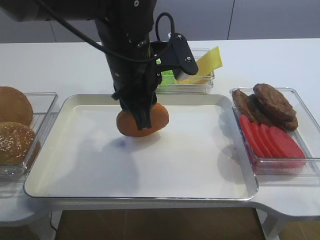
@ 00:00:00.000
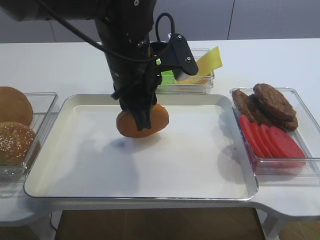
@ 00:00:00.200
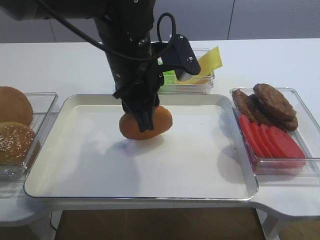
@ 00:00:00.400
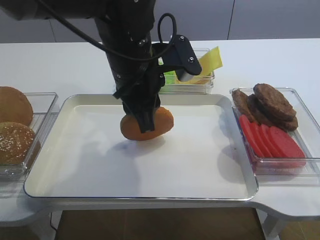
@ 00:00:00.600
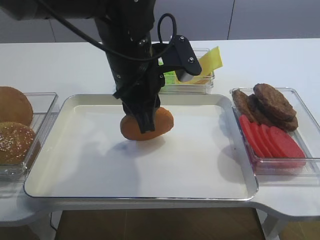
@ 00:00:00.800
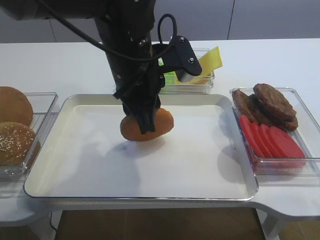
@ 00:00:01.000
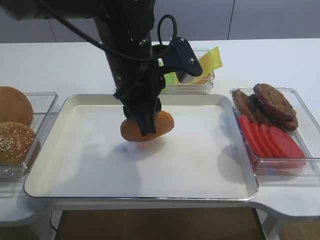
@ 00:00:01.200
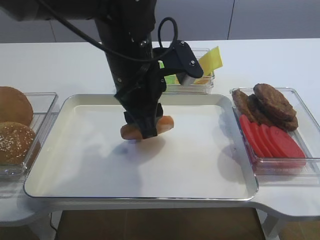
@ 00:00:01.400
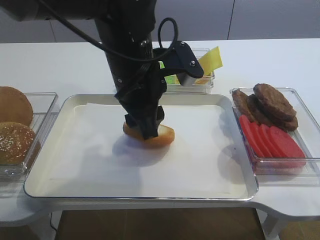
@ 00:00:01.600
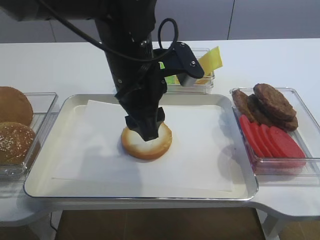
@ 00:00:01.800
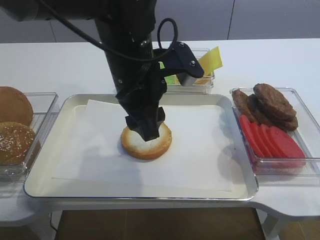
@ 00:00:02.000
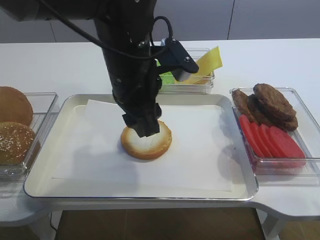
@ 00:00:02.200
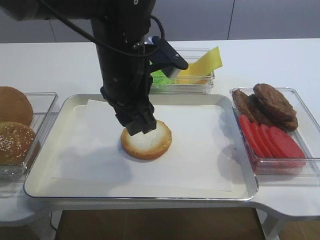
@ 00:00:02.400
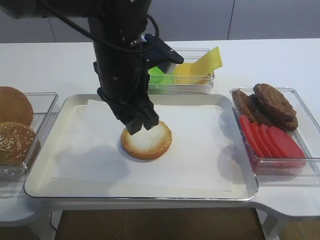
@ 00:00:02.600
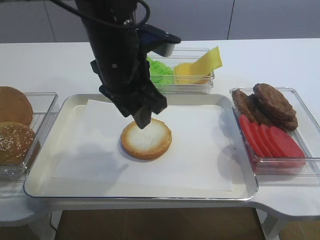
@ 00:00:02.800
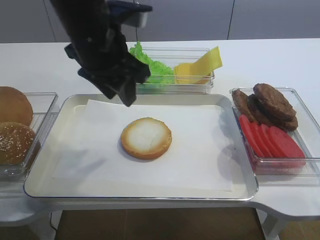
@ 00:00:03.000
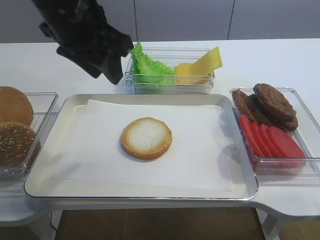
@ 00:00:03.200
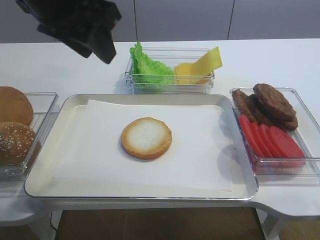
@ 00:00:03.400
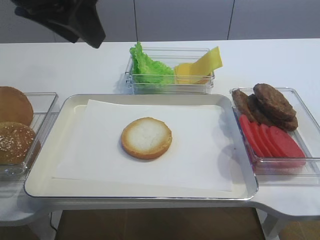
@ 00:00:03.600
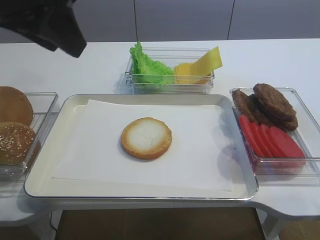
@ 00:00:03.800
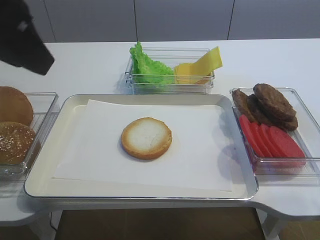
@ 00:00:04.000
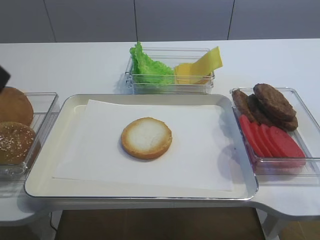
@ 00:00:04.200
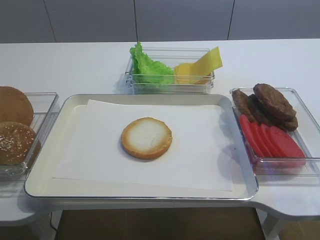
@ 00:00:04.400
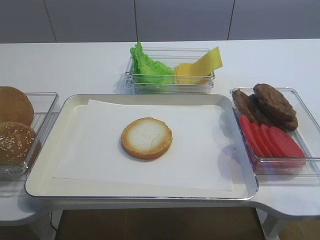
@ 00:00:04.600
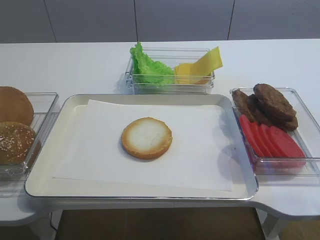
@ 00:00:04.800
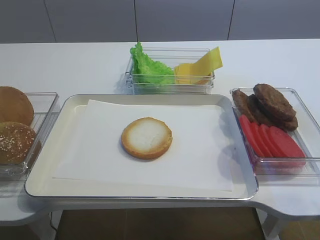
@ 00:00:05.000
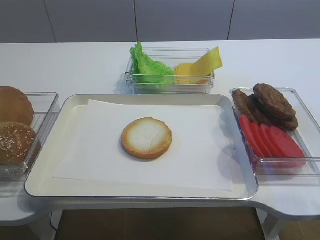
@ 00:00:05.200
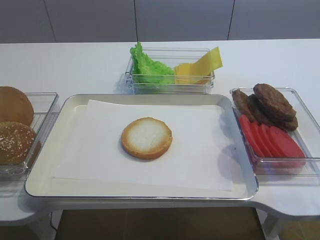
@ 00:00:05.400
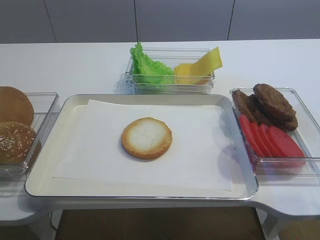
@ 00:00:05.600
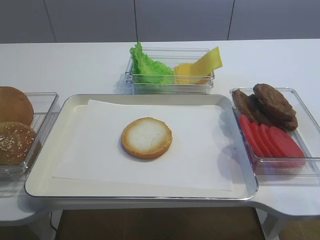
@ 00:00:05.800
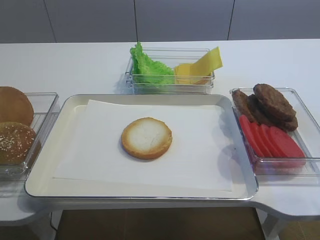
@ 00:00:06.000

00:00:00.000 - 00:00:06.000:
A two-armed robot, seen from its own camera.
Step, 00:00:00.000 - 00:00:02.800: Place the bread slice on the tray with the left gripper.
00:00:00.000 - 00:00:01.600: The left gripper opens up.
00:00:01.600 - 00:00:03.000: The left gripper moves some 5 cm.
00:00:03.000 - 00:00:04.400: The left gripper is displaced backward, to the left and upward by about 30 cm.

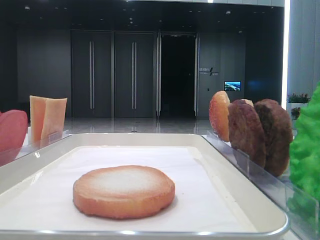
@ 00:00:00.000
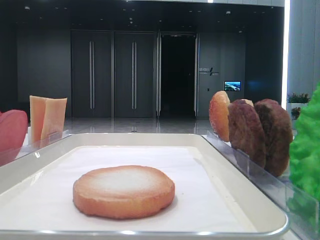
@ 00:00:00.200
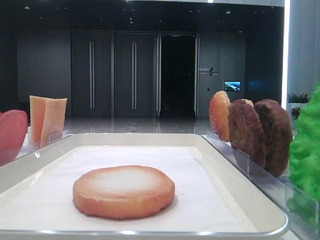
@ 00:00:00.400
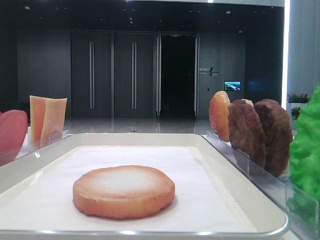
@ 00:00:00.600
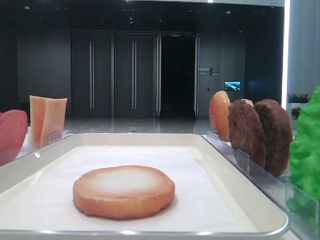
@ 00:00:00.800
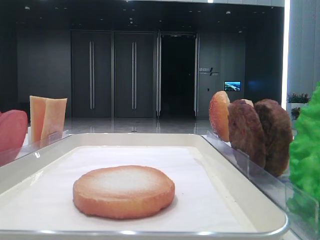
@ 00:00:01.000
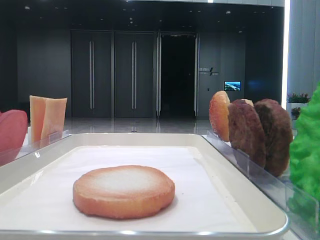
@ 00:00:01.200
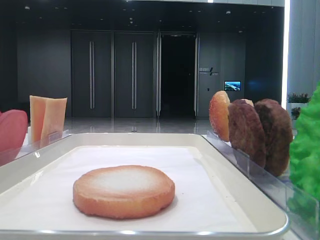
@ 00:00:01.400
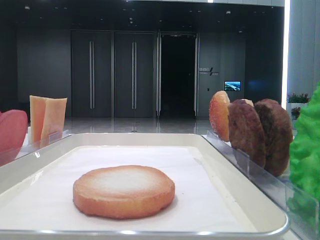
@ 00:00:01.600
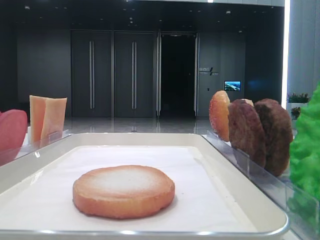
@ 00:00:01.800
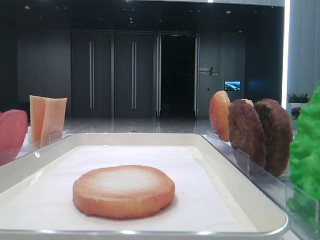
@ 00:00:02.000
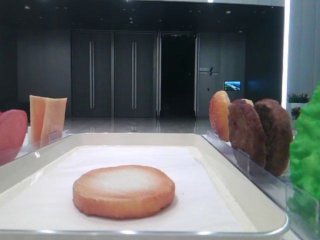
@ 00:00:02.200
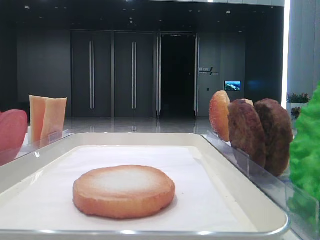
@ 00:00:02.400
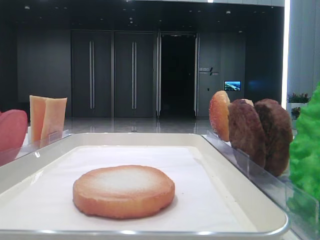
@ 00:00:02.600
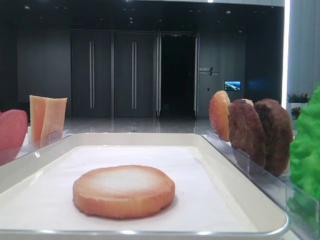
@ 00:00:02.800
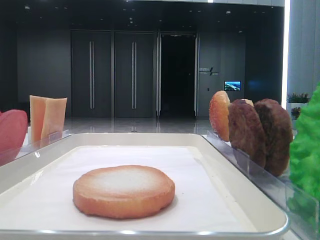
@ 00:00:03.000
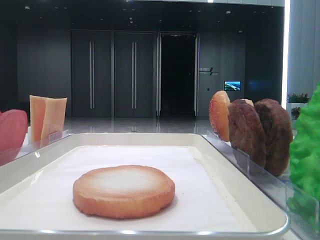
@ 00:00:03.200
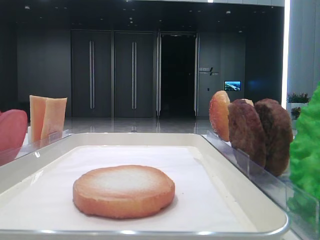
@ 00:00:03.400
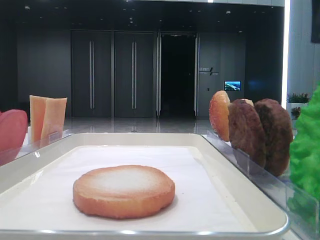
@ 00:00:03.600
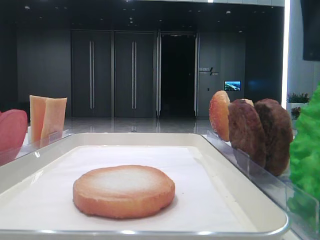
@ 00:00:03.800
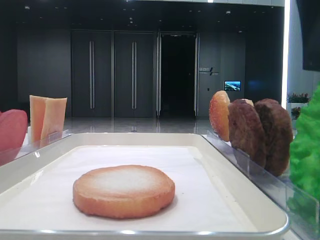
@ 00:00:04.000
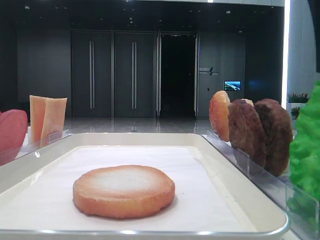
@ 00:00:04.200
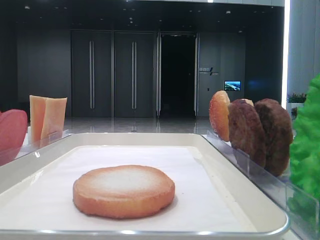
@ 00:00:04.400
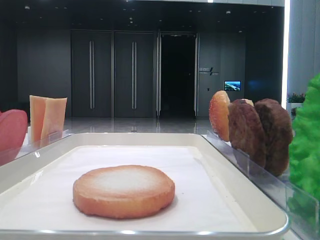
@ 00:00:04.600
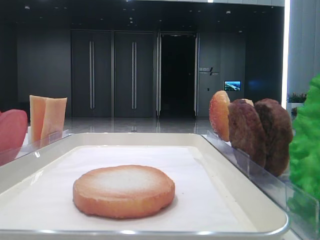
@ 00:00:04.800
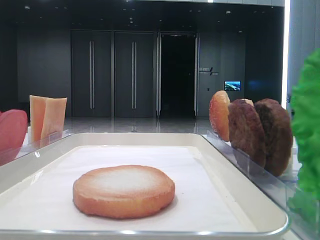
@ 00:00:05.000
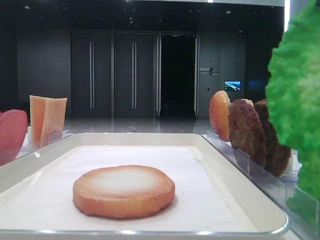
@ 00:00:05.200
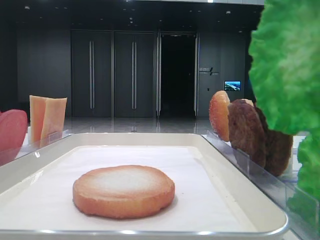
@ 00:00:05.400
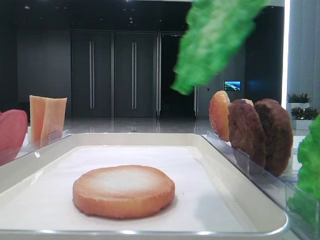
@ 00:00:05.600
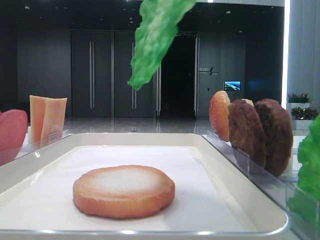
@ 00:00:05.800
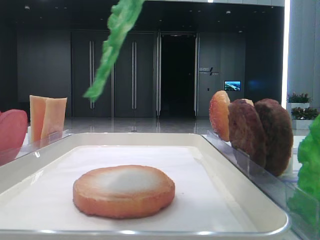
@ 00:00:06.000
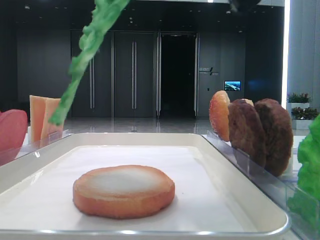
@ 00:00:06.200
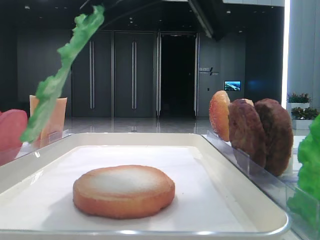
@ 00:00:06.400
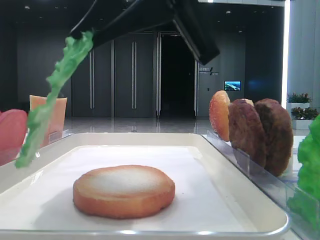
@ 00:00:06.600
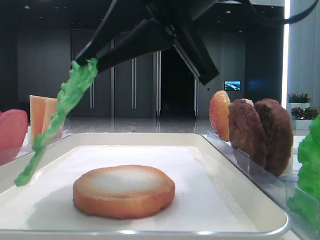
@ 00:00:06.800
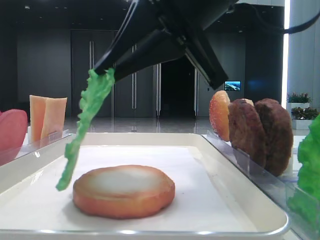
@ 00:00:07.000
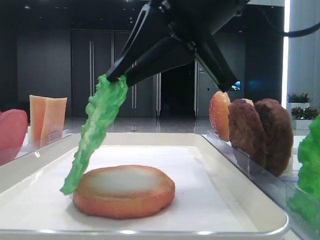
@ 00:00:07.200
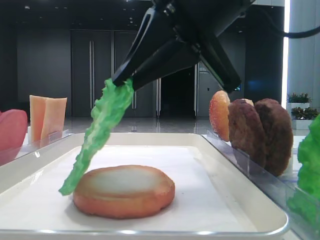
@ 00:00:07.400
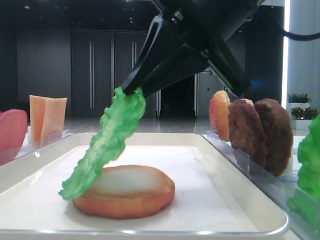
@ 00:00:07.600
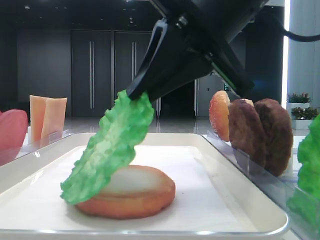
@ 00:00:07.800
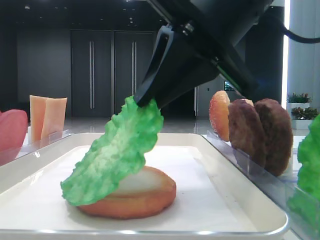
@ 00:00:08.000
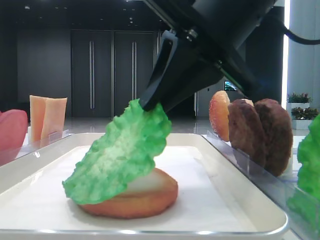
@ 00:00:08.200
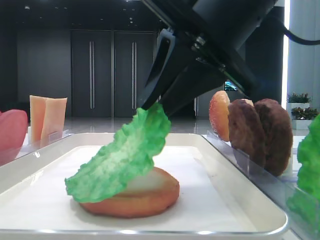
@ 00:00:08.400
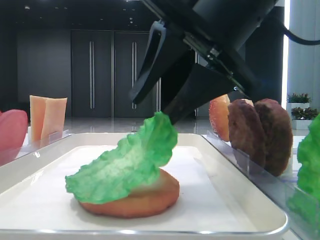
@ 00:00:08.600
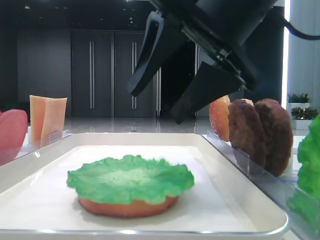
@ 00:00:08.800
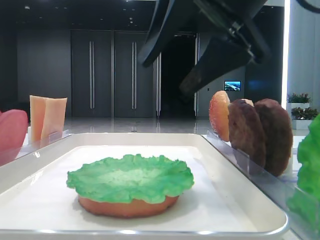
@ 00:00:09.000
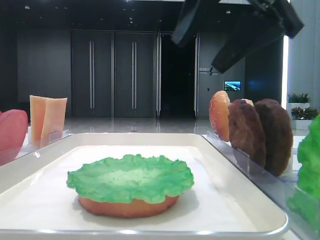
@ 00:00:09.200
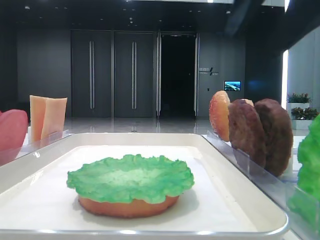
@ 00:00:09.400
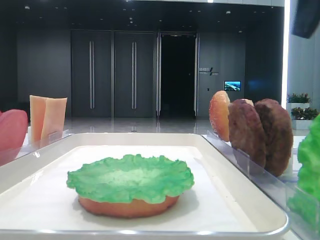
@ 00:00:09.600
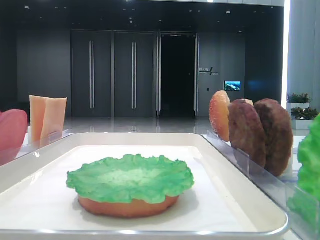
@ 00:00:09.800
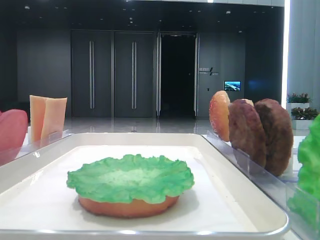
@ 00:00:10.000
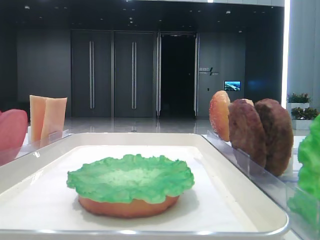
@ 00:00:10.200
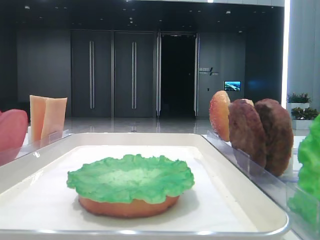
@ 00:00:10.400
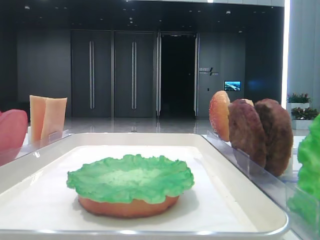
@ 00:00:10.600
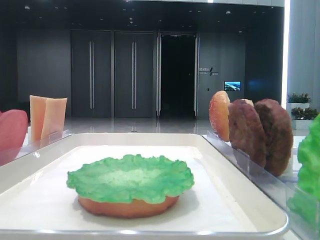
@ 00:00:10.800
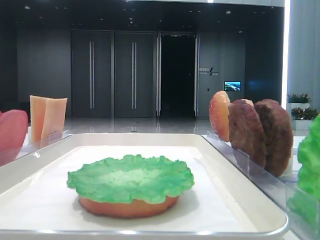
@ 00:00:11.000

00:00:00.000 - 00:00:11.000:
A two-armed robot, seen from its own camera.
Step, 00:00:00.000 - 00:00:04.600: Grab the lettuce leaf with the right hand.
Step, 00:00:04.800 - 00:00:08.800: Place the lettuce leaf on the bottom bread with the right hand.
00:00:04.800 - 00:00:06.200: The right gripper goes some 10 cm to the left.
00:00:06.200 - 00:00:07.800: The right gripper is displaced downward by approximately 5 cm.
00:00:07.800 - 00:00:09.400: The right gripper is displaced to the right and upward by some 10 cm, and opens.
00:00:09.400 - 00:00:11.000: The right gripper shifts approximately 20 cm backward and to the right.

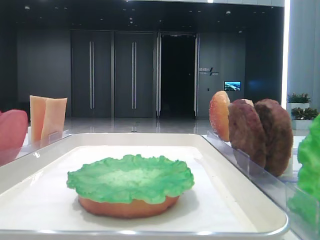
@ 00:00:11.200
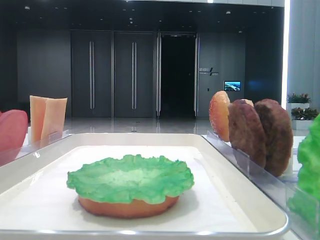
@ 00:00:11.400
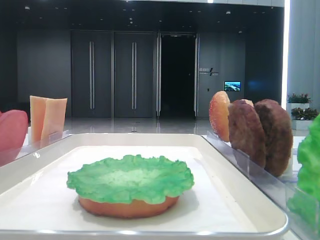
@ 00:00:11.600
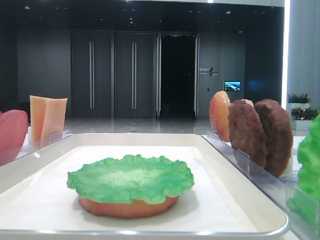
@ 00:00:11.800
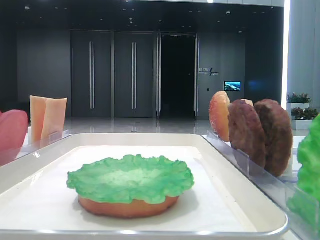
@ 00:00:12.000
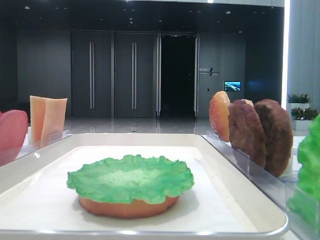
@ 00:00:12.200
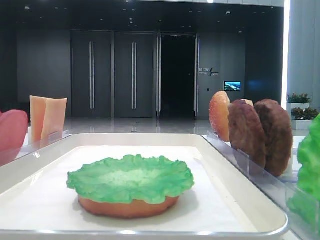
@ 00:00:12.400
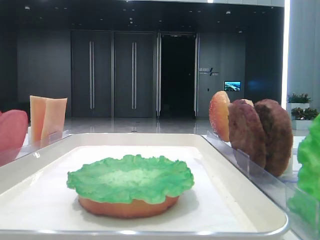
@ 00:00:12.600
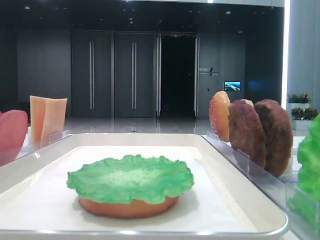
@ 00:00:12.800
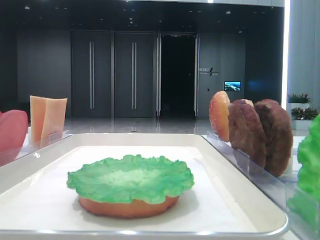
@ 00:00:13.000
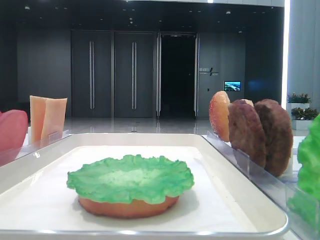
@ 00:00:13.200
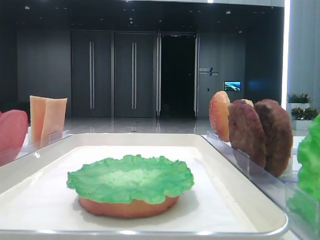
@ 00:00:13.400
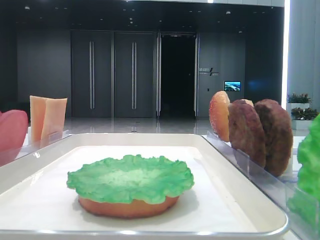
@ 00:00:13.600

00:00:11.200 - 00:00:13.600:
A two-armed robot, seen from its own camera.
00:00:12.400 - 00:00:13.600: Neither gripper changes place.
